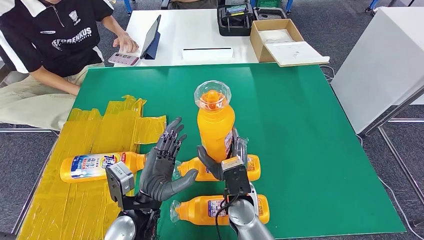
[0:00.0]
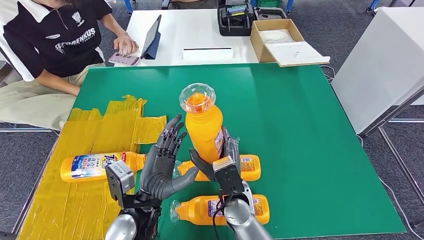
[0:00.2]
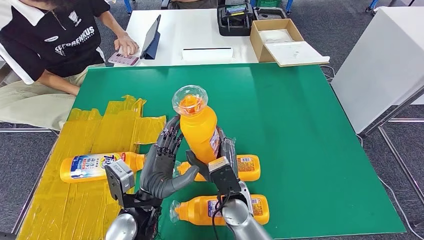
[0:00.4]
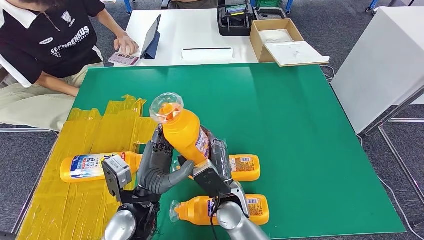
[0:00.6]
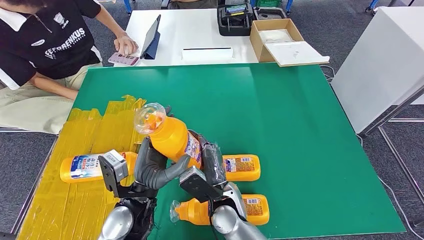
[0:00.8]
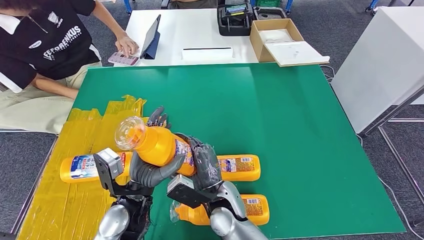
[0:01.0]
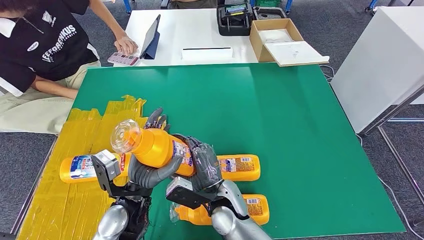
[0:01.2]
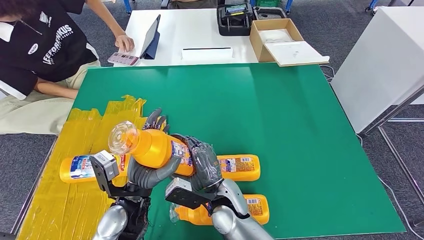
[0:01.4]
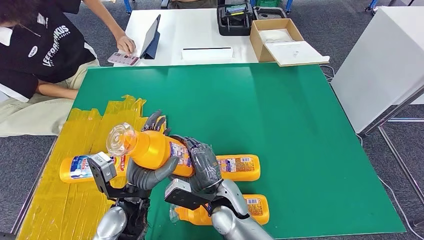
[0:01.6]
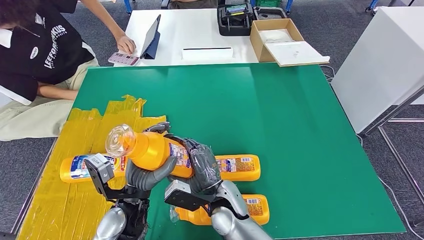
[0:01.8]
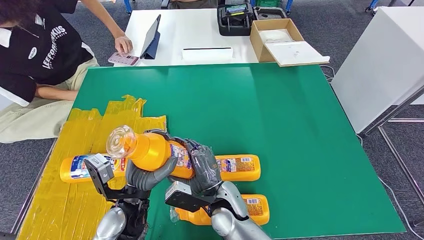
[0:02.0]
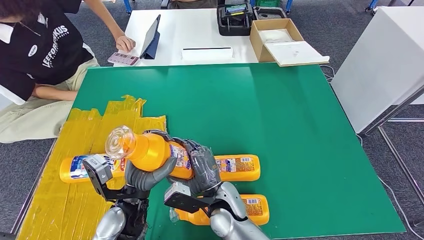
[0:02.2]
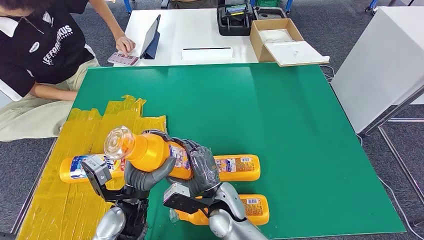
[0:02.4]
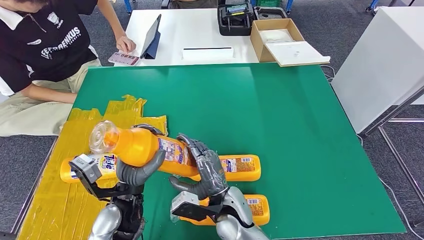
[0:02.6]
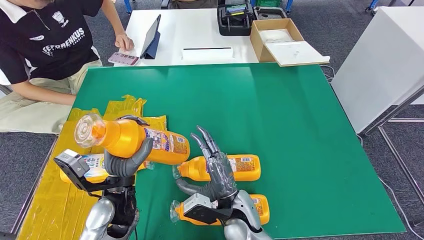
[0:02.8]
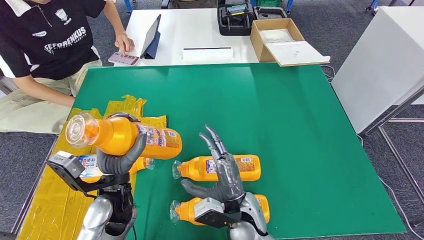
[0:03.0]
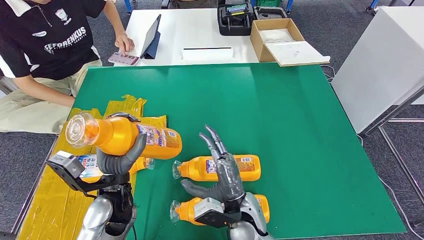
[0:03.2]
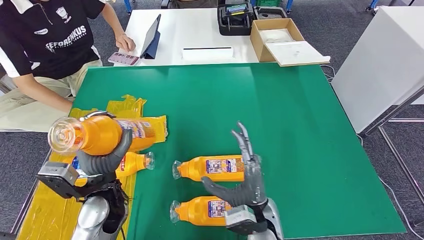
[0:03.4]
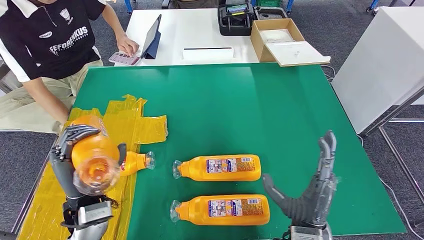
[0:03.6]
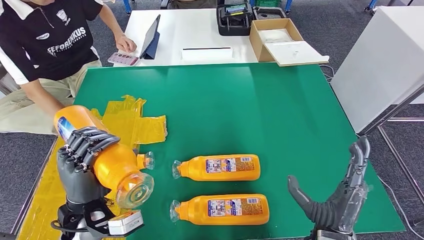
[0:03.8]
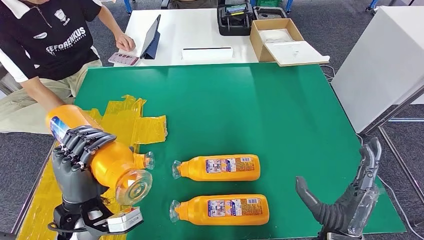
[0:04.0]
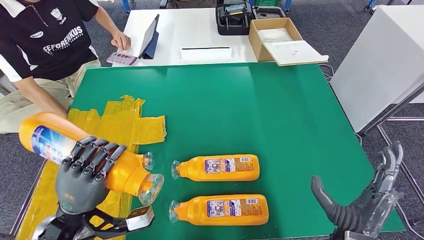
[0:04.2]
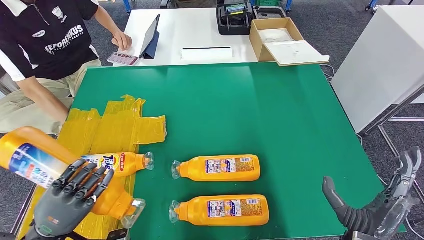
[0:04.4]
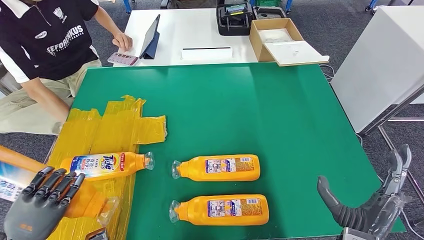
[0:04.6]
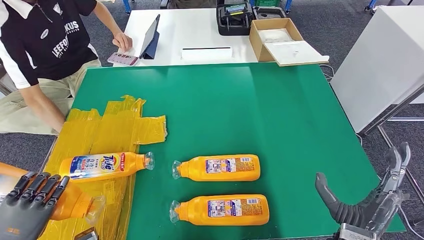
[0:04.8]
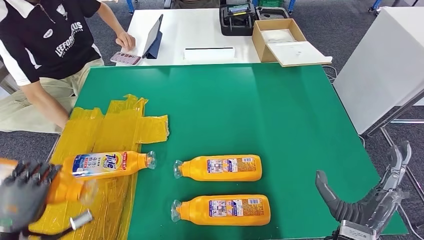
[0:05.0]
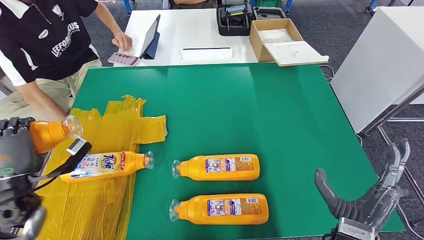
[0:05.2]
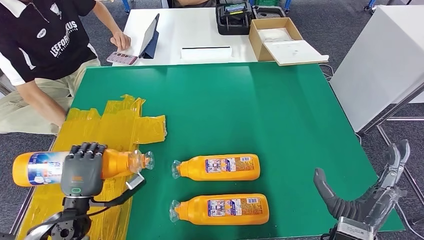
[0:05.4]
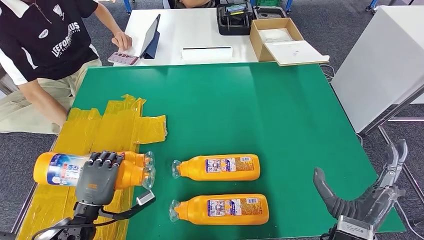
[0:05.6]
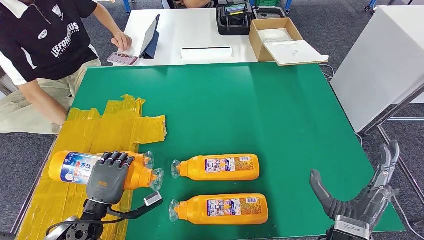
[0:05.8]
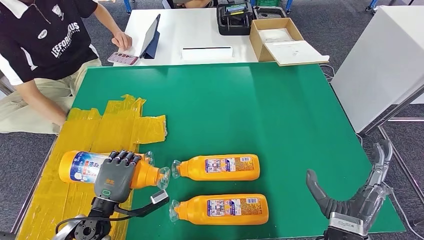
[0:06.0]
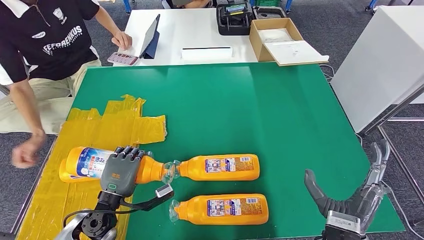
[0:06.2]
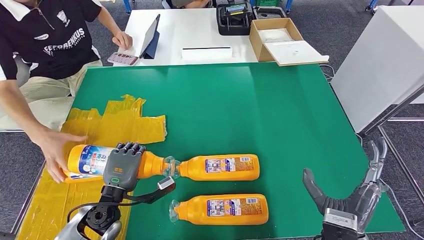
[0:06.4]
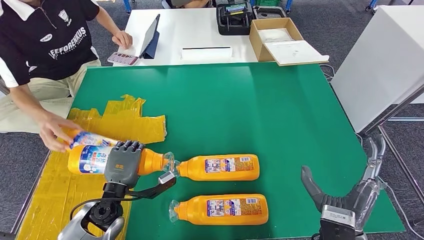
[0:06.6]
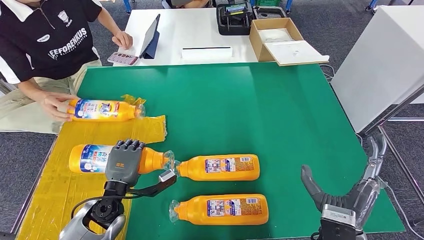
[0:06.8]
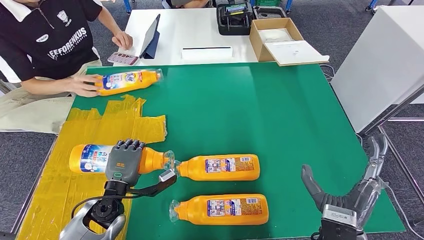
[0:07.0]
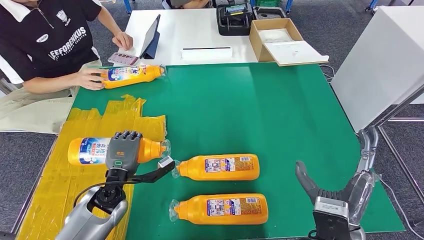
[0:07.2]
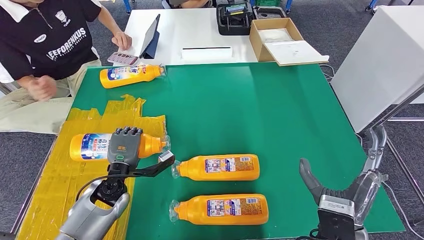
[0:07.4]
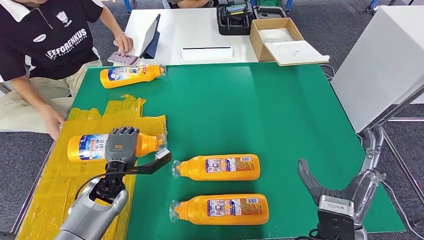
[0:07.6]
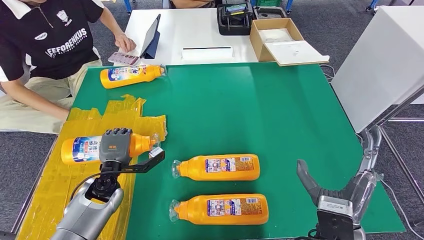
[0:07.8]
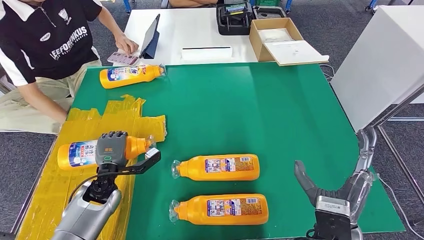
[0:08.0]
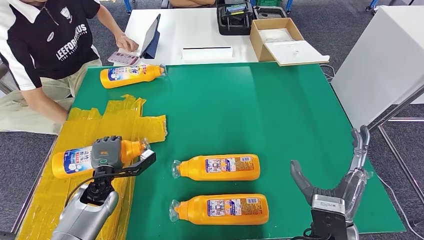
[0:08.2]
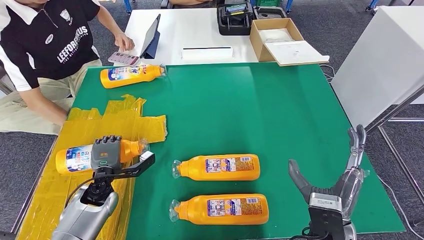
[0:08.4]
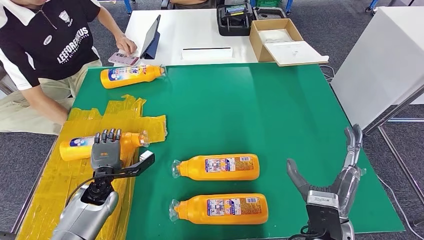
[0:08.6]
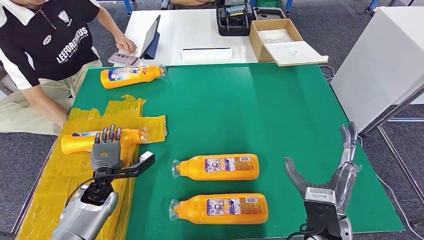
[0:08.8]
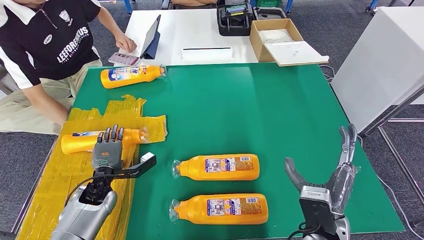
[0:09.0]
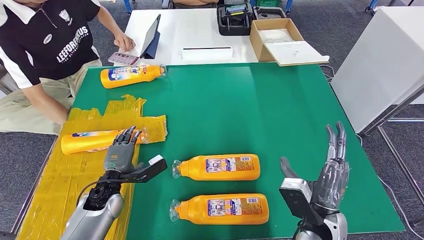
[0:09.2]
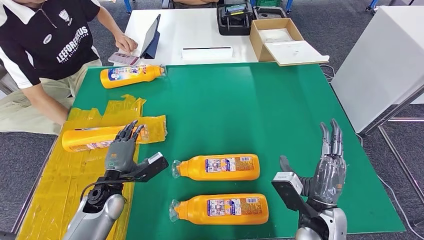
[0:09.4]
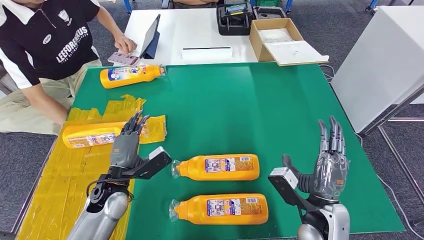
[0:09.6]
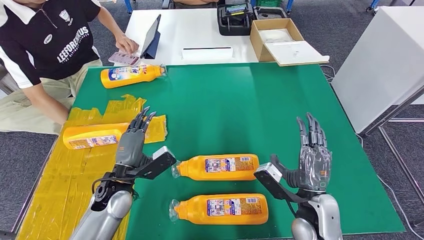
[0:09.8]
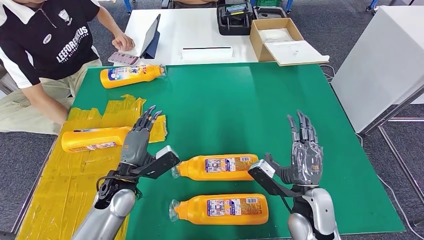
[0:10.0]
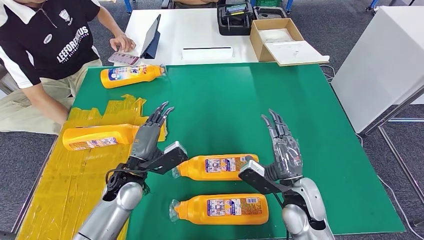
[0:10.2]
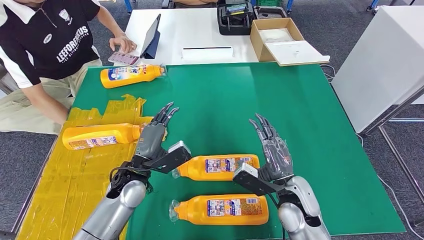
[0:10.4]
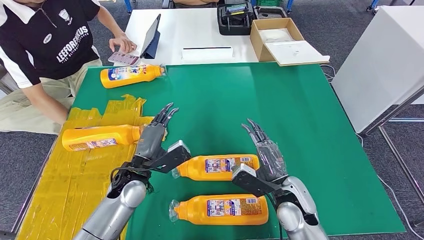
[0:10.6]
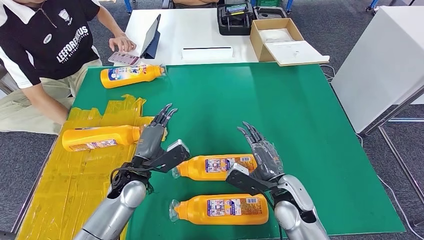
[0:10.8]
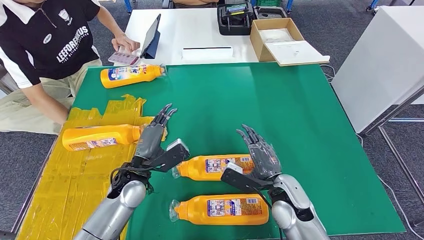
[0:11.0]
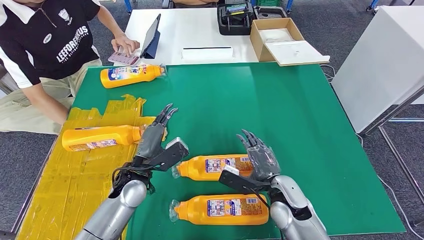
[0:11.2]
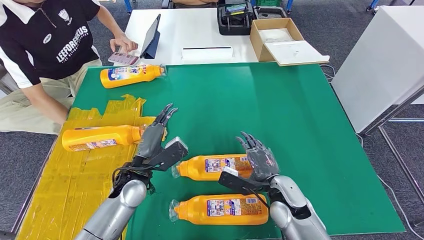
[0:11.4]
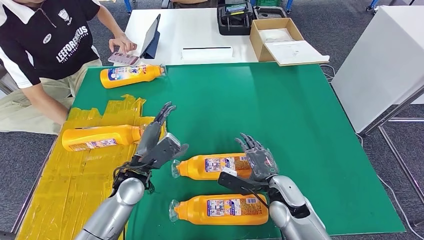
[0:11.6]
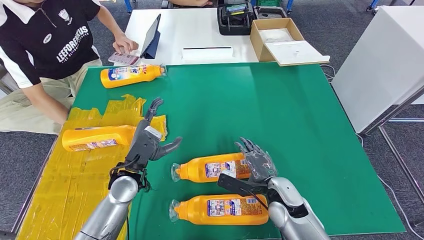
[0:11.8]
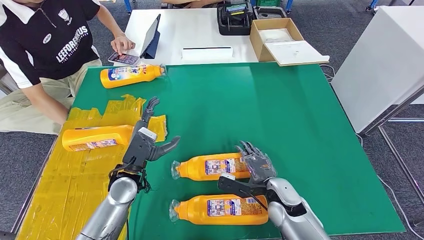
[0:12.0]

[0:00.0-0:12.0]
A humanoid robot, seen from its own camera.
Step, 0:01.4 to 0:07.8: Flip the bottle to face forward.
0:01.6 to 0:03.0: The right hand moves about 5 cm.
0:04.4 to 0:06.0: The left hand is displaced to the right, downward and forward by approximately 10 cm.
0:06.0 to 0:07.6: The left hand heads forward, covering roughly 10 cm.
0:07.6 to 0:09.0: The left hand changes place by approximately 5 cm.
0:09.0 to 0:10.4: The left hand shifts roughly 15 cm to the right and upward. Meanwhile the right hand heads forward, covering about 5 cm.
0:10.4 to 0:12.0: The right hand shifts some 5 cm downward.

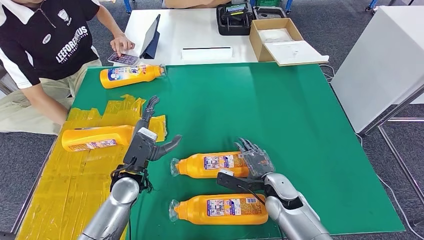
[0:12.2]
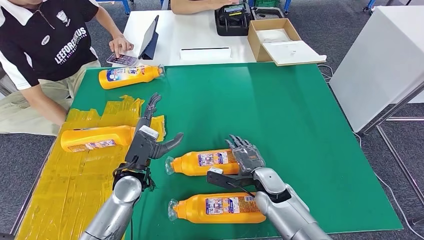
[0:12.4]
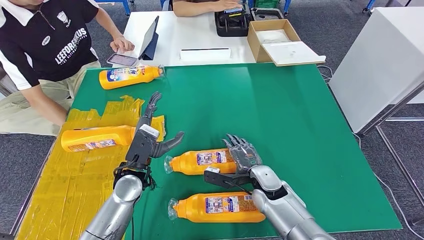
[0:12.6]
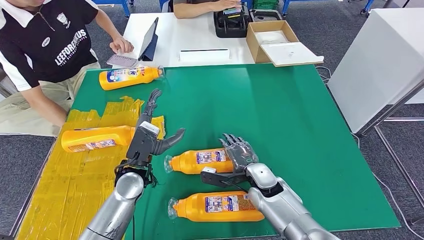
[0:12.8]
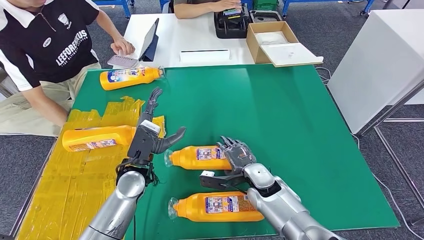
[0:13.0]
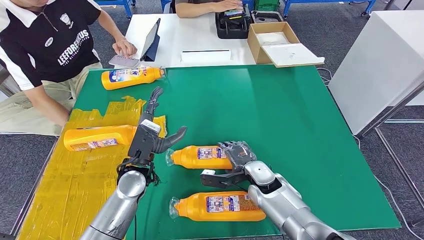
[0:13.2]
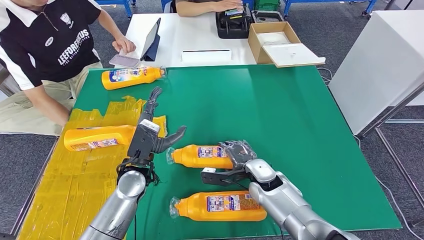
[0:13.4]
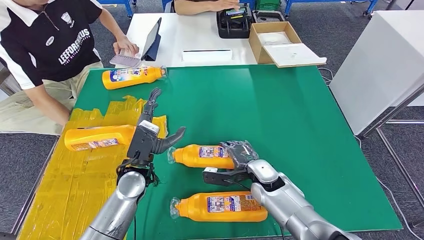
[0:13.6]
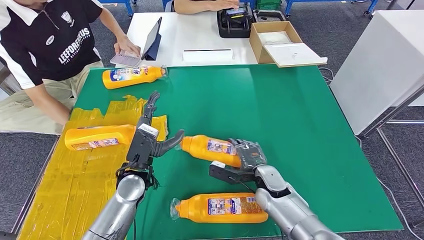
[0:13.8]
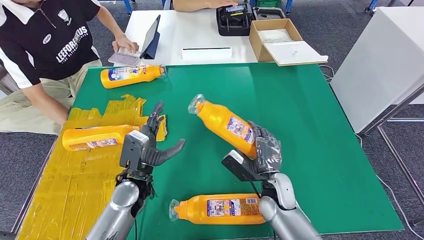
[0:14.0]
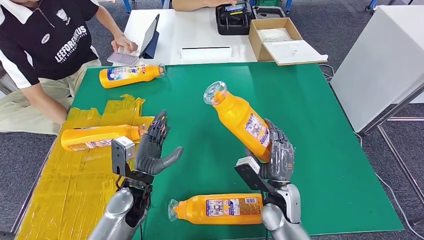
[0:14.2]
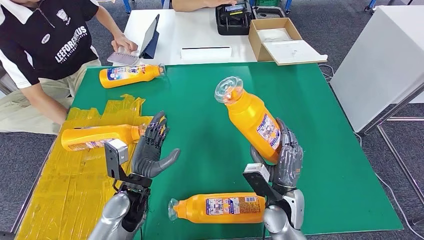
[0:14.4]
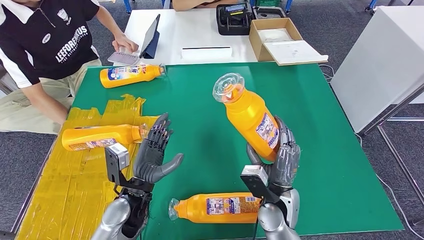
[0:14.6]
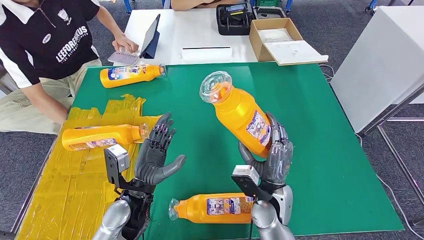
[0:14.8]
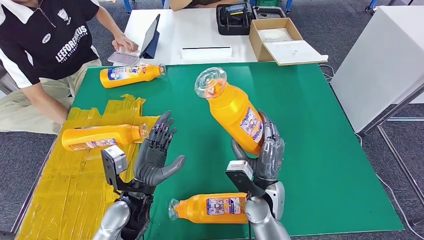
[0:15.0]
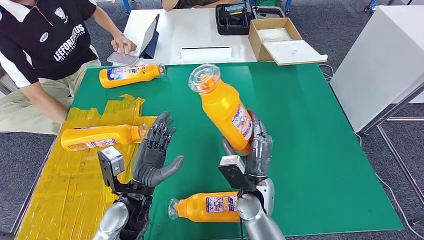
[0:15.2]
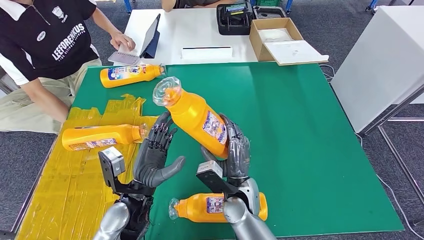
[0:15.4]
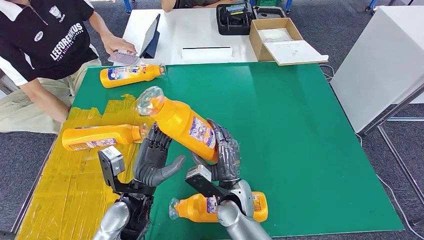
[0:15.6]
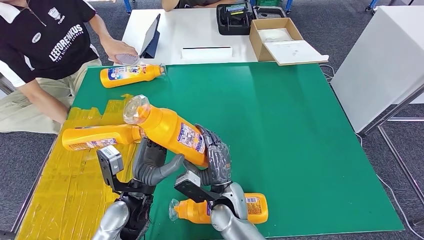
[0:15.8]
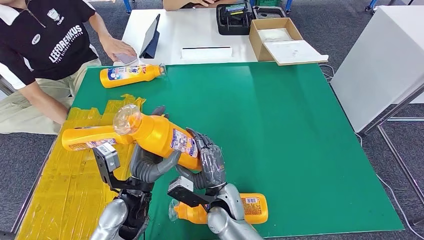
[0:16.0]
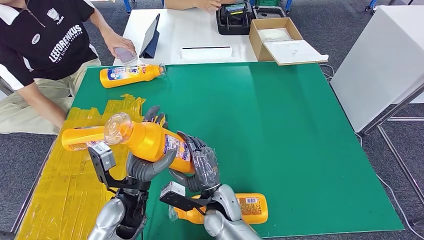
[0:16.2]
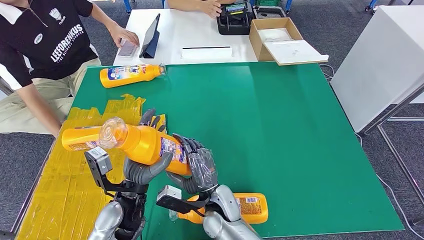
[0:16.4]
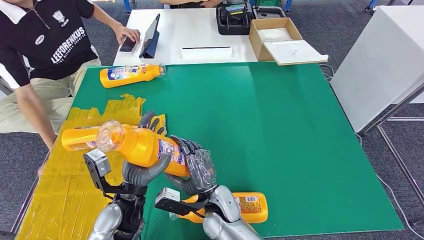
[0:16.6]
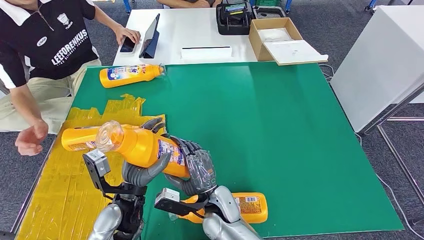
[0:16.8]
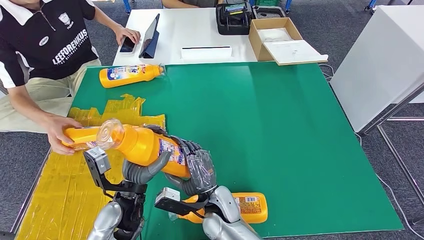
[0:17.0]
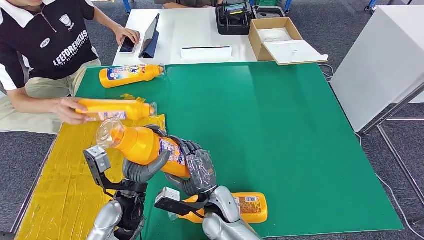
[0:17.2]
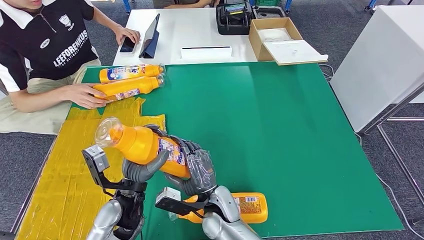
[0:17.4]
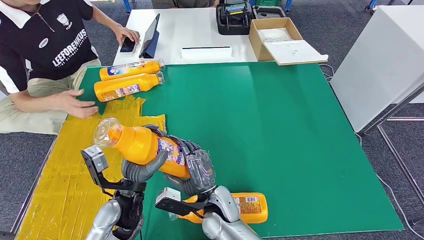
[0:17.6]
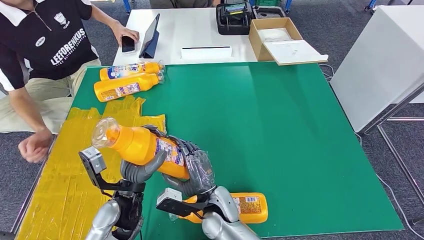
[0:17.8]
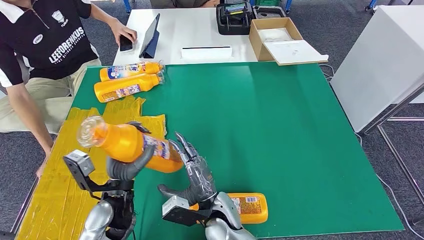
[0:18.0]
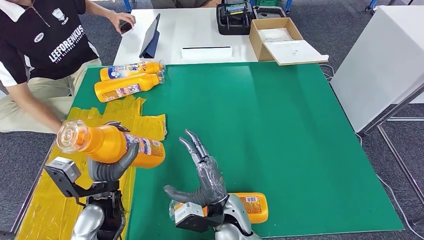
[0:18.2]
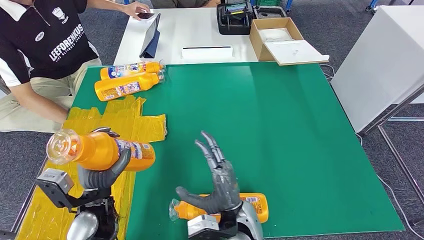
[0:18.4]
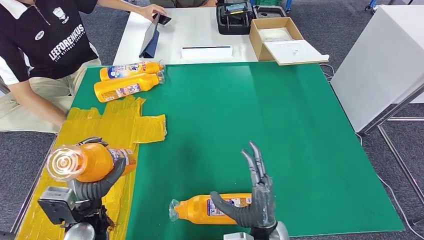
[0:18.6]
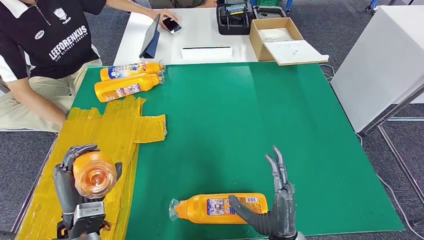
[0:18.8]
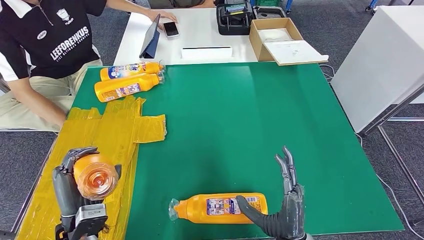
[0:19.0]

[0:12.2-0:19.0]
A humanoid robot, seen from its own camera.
Step, 0:12.2 to 0:17.0: Pick up the bottle from the table.
0:16.2 to 0:17.6: The hands stay close to where they were, moving slightly.
